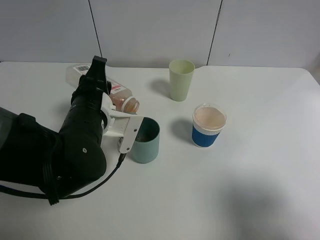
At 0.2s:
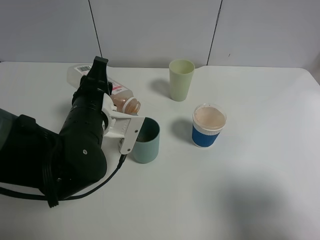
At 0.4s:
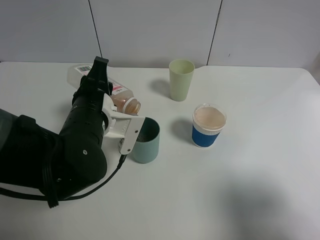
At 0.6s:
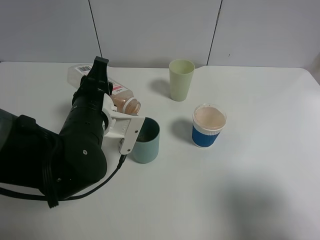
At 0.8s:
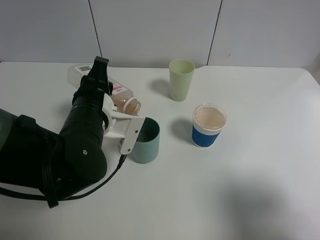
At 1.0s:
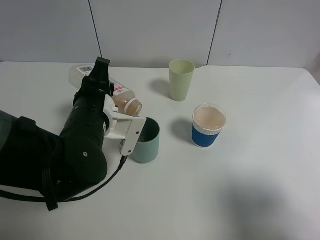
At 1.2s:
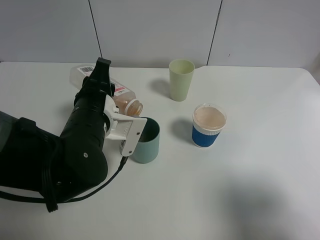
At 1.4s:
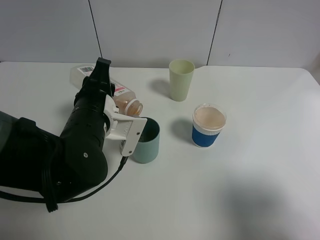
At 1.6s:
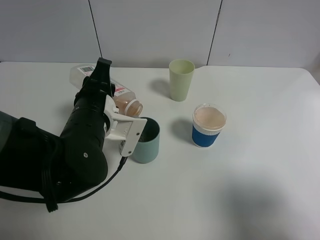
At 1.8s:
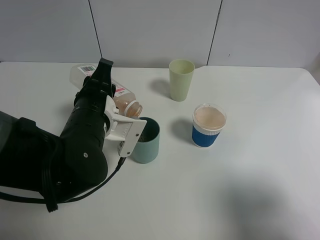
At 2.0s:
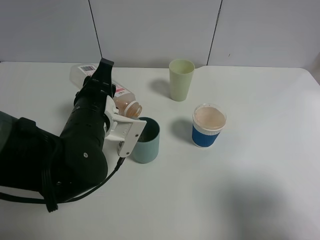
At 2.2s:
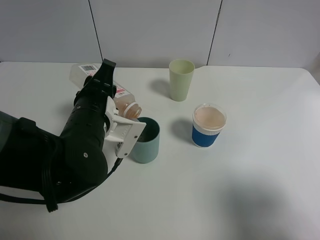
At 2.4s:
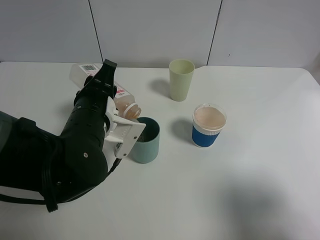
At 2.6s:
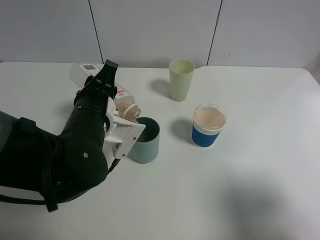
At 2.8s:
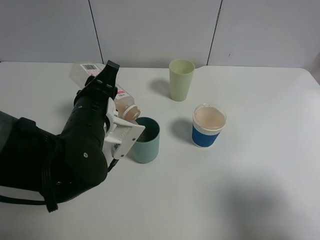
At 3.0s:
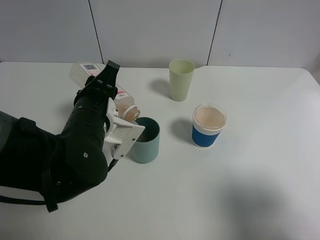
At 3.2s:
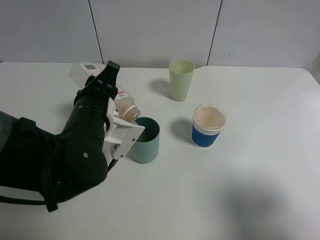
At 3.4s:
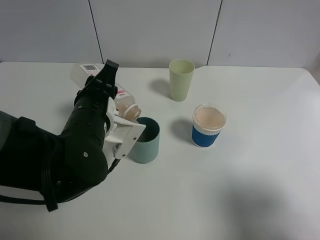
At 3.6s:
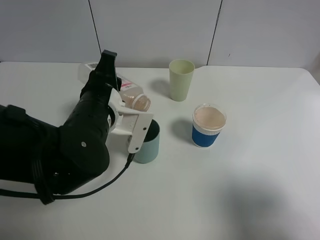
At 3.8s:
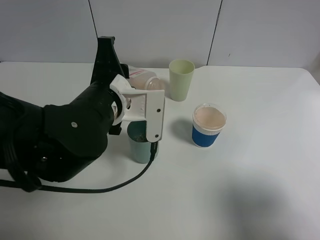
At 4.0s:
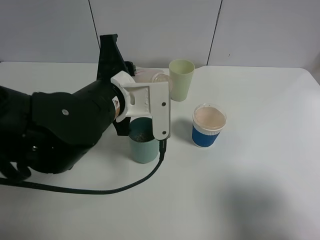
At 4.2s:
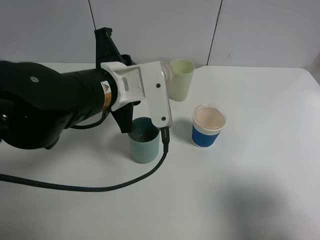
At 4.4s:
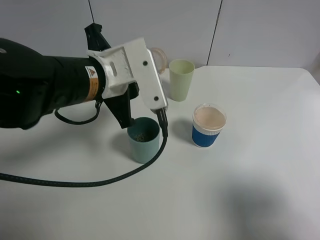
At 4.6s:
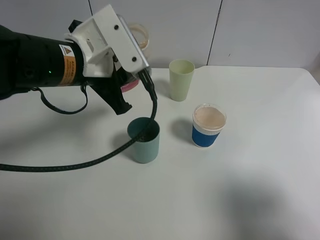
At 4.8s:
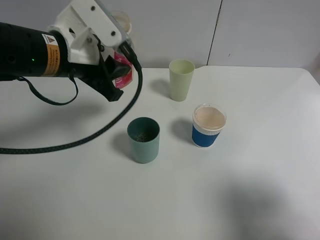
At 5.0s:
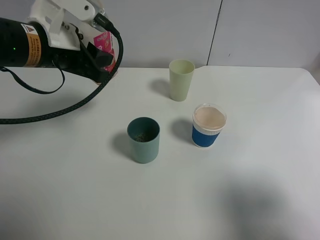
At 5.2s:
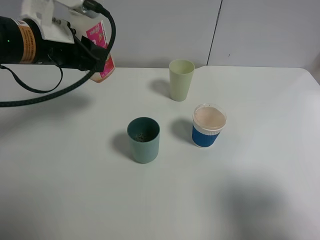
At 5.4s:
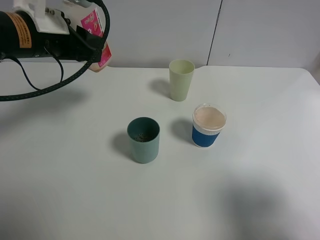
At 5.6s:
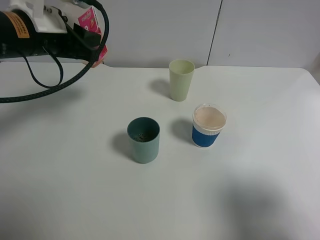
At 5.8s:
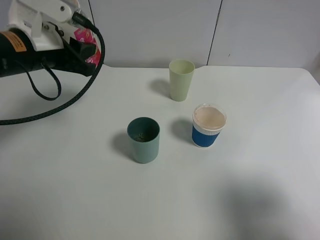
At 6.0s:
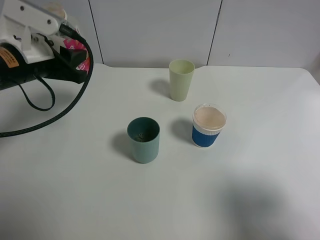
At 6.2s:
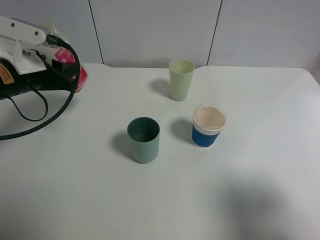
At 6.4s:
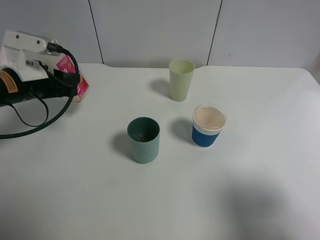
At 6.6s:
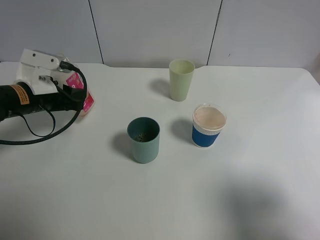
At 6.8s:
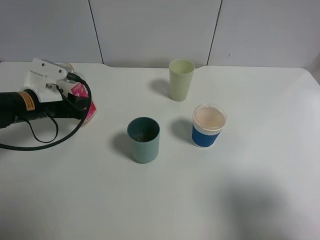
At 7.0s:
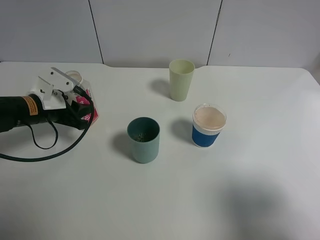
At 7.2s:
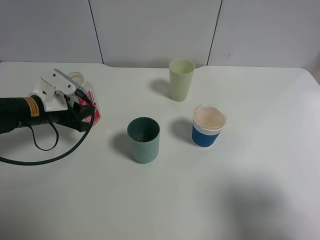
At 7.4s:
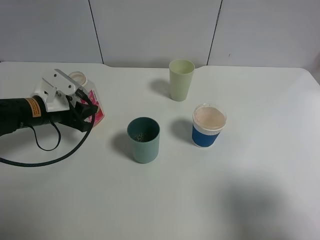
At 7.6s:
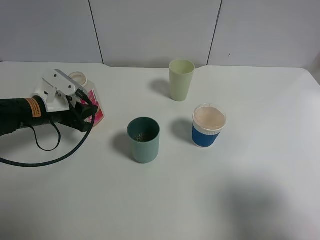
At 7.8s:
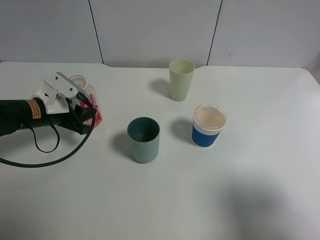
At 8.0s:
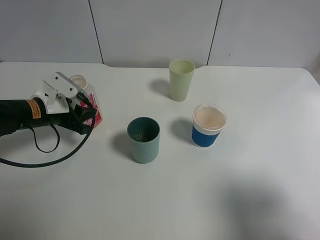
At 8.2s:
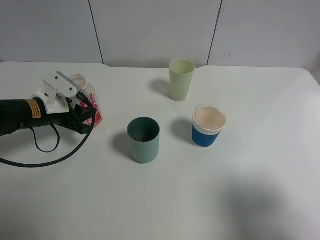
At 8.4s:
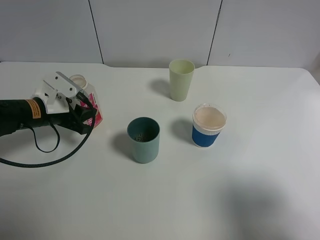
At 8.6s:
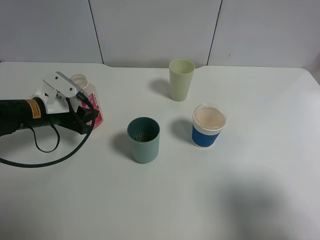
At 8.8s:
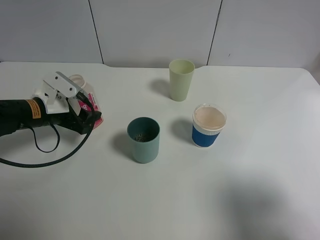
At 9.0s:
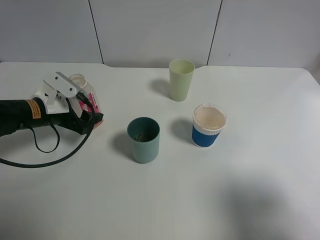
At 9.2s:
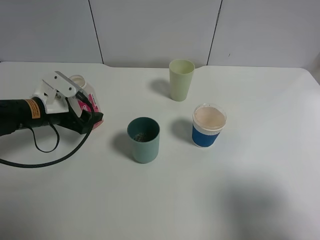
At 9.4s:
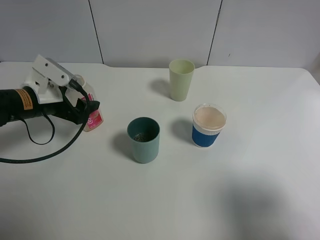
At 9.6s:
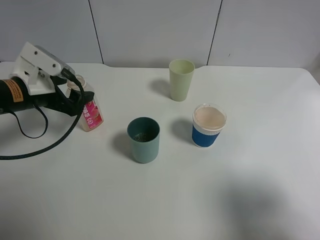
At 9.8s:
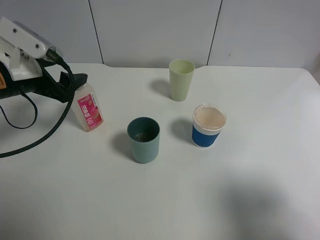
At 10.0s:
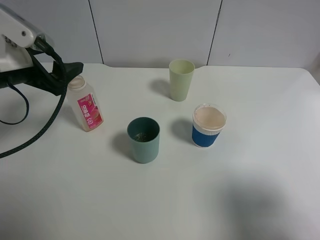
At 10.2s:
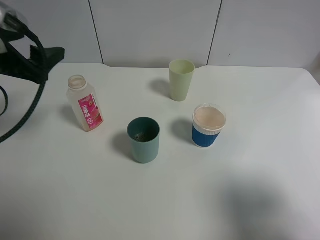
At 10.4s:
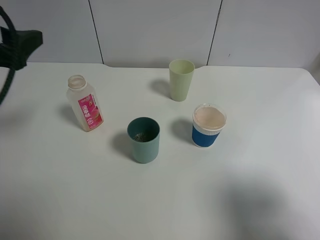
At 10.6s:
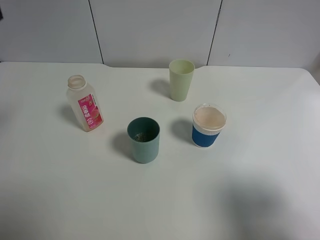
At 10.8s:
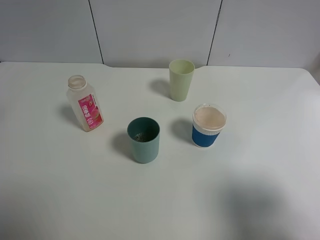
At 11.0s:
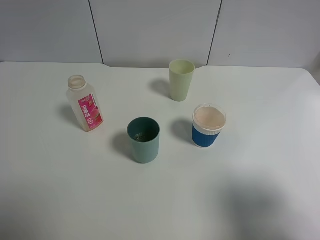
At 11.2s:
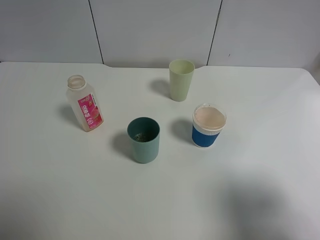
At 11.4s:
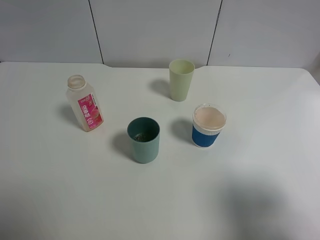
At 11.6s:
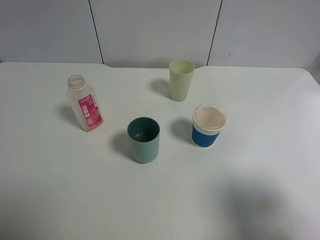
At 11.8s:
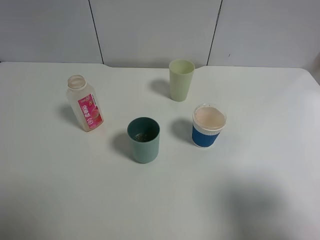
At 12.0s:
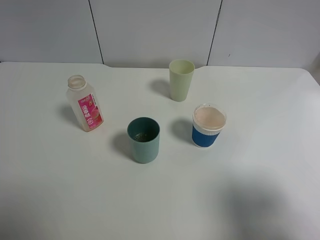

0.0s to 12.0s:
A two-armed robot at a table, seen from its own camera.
Task of the whole recording: use a gripper to hold the bottle of the drink and pour it into a random cup.
Step, 0.0s to 3.6s: Pour the cranberry juice into the cyan cup with the left gripper.
Step, 3.8s to 8.8s: Place the cranberry juice bottle on the table with the left gripper.
0.0s to 1.6s: Both grippers stay about where they are.
1.6s to 3.0s: The grippers make only small movements.
3.0s to 4.4s: The left gripper is displaced upward by approximately 10 cm.
4.4s to 6.0s: The left gripper is displaced to the left by about 15 cm.
6.0s to 7.6s: The left gripper goes roughly 10 cm downward.
7.6s to 9.0s: The left gripper opens.
9.0s to 10.4s: The left gripper shifts roughly 20 cm upward and backward.
10.4s to 12.0s: The left gripper moves backward, some 20 cm.

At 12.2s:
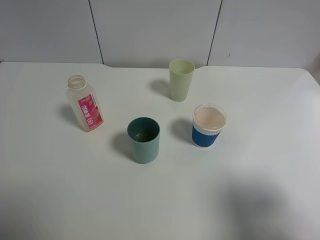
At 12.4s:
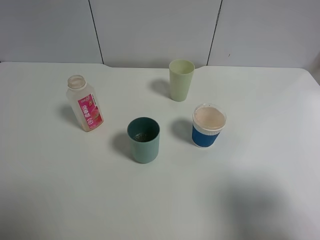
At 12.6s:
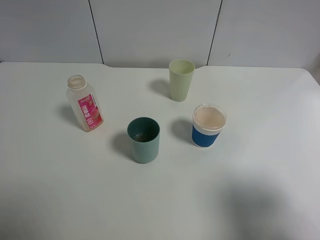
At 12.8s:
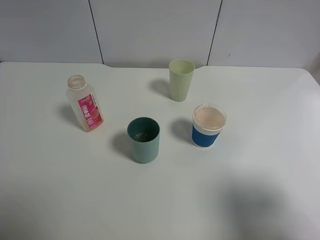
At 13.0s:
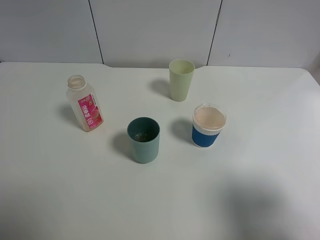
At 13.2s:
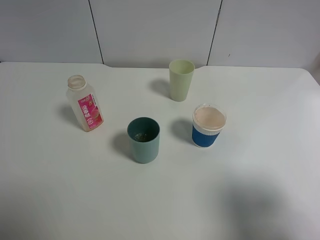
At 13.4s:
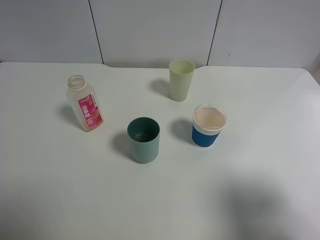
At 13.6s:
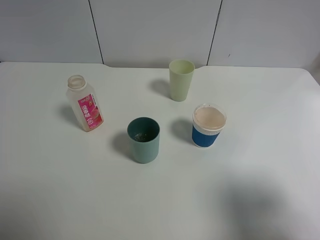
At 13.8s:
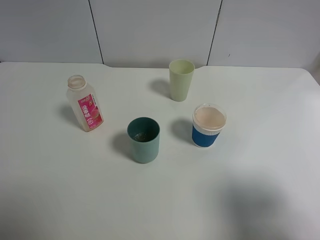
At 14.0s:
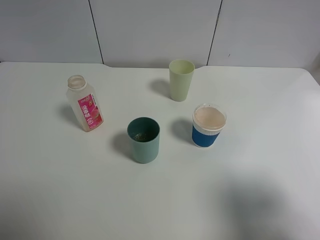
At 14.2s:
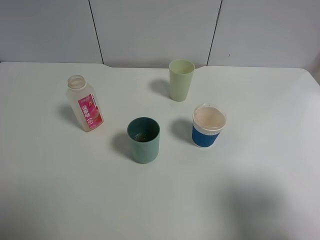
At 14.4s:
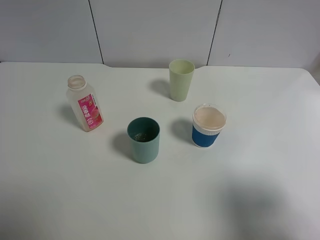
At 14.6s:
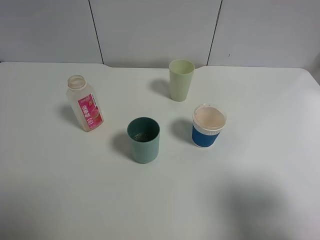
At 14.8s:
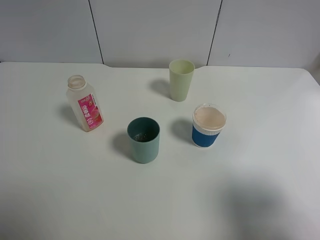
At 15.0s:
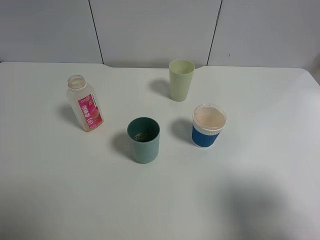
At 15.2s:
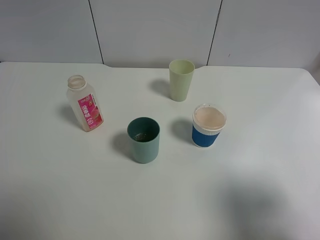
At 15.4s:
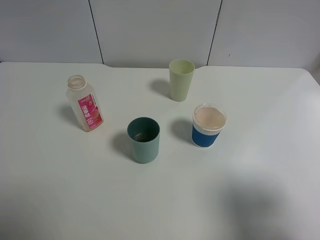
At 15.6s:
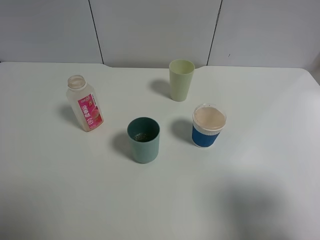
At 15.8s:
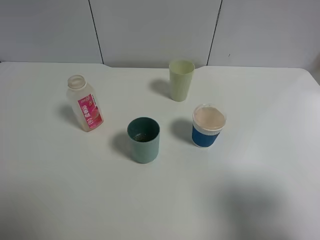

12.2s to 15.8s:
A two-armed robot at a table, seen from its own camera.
Task of the whole recording: use a gripper to hold the bottle of the drink and pour it into a random cup.
14.0s to 15.8s: Both grippers stay put.

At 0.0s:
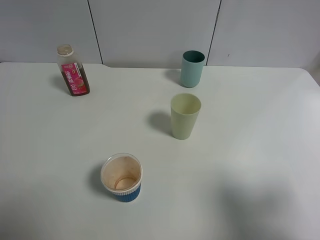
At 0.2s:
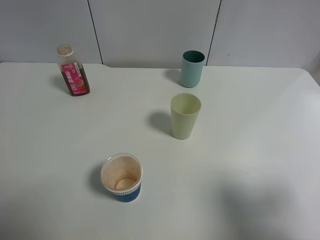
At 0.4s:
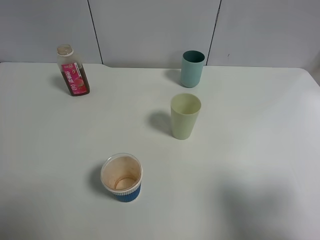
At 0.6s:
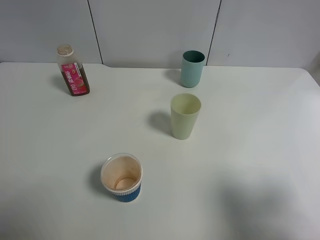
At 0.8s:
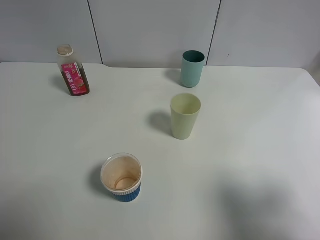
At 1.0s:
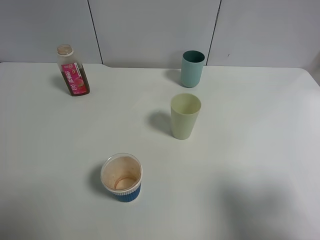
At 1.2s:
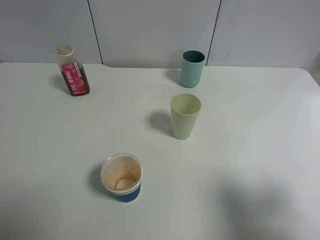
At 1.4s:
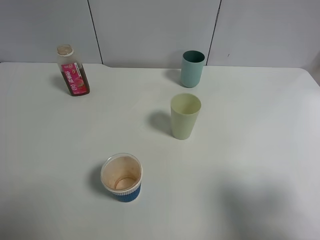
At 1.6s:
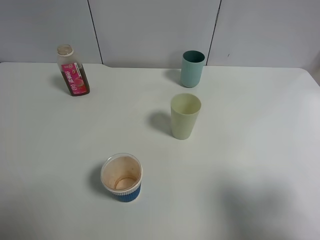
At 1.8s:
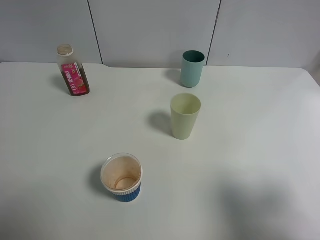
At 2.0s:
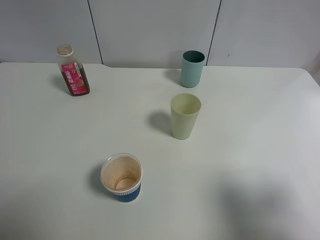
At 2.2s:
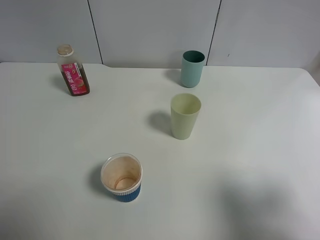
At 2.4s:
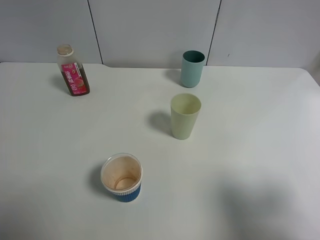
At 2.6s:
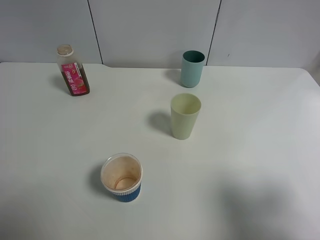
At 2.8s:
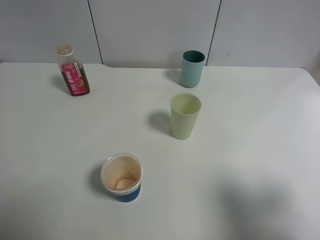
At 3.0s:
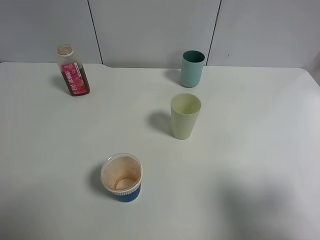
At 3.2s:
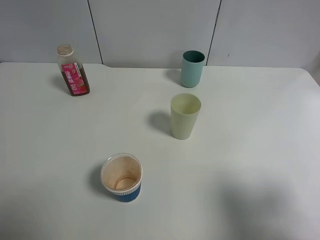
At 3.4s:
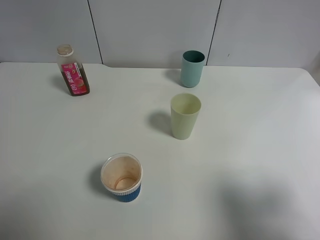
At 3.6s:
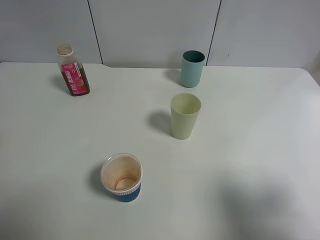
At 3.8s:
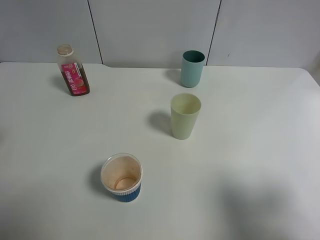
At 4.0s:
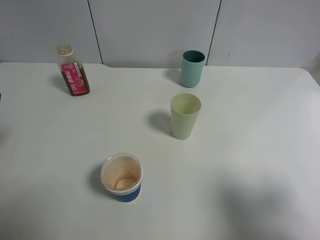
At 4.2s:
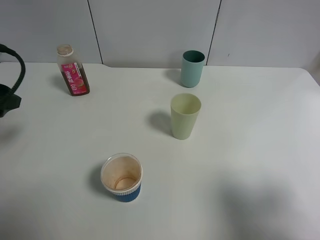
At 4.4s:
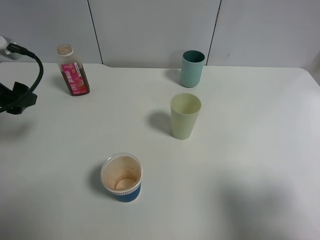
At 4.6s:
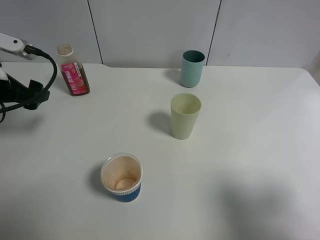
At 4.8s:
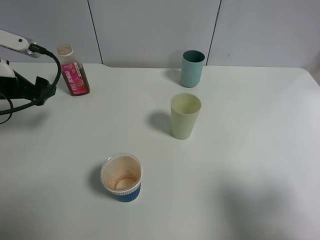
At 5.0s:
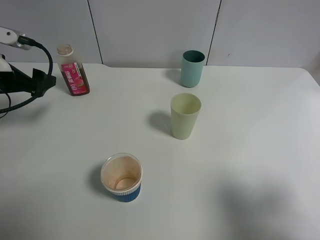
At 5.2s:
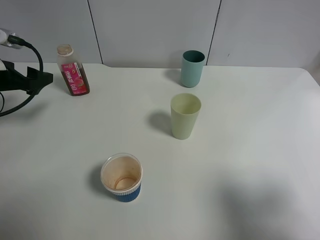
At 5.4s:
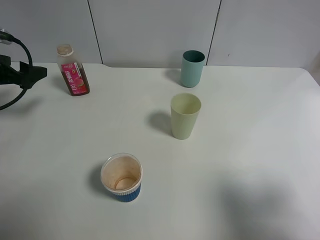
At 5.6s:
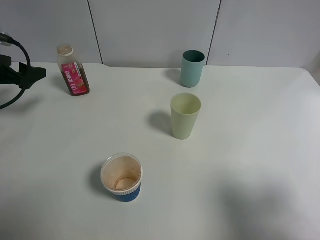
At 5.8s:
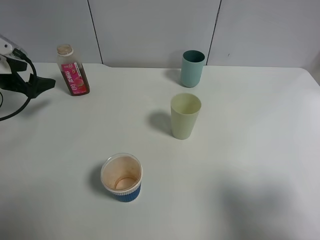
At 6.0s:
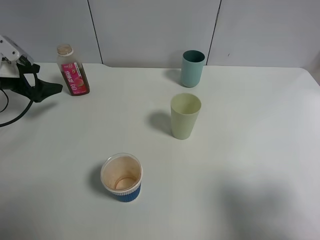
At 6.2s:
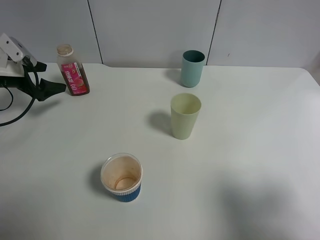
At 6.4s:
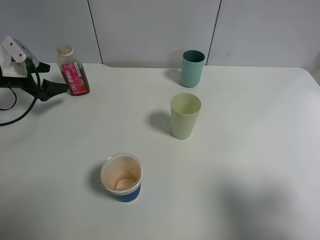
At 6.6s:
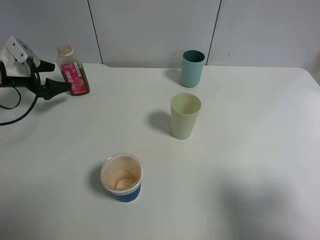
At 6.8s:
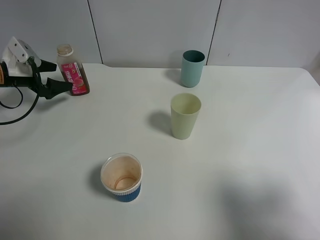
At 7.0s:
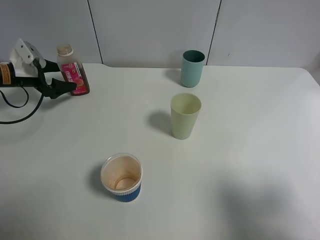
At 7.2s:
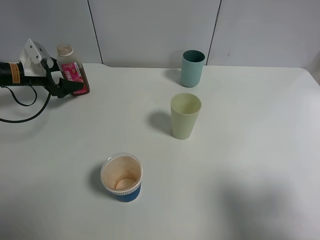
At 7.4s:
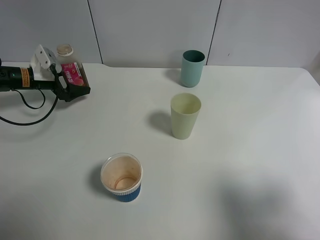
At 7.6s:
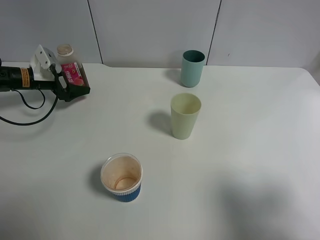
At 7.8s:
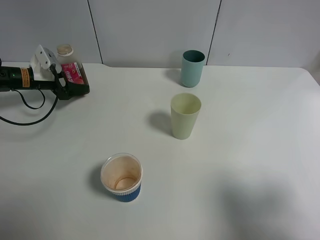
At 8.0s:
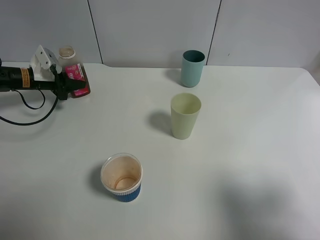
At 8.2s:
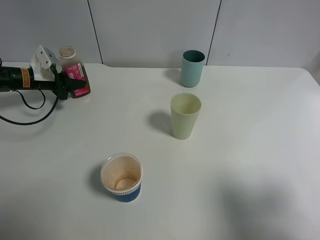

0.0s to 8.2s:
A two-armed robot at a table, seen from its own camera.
Task of the whole recording: use a gripper to hold the bottle of the drink and pour it into a random cup.
0.0s to 1.6s: Neither gripper changes place.
3.2s to 5.0s: The left gripper heads forward and downward, covering about 25 cm.
5.0s to 6.6s: The left gripper travels forward, downward and to the left by approximately 15 cm.
6.6s to 8.2s: The left gripper ends up roughly 5 cm from where it was, and closes up.
